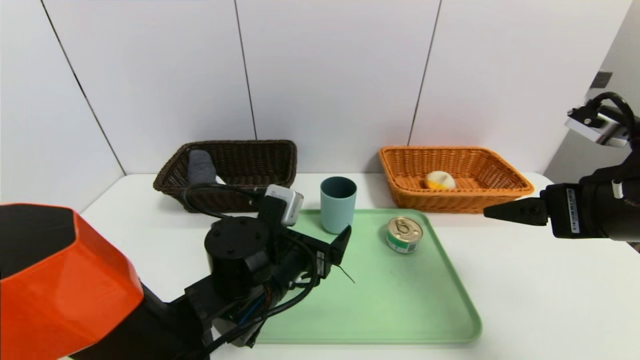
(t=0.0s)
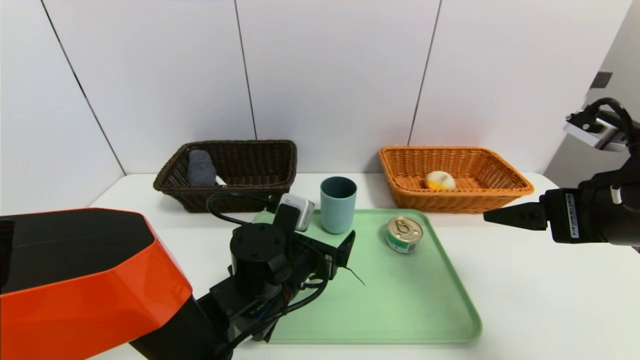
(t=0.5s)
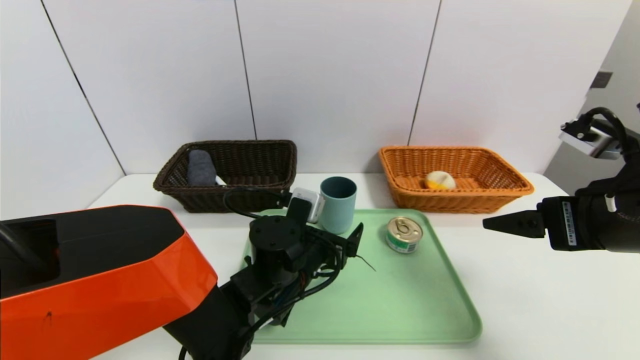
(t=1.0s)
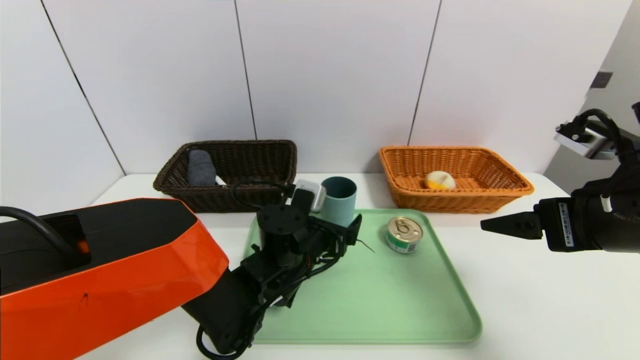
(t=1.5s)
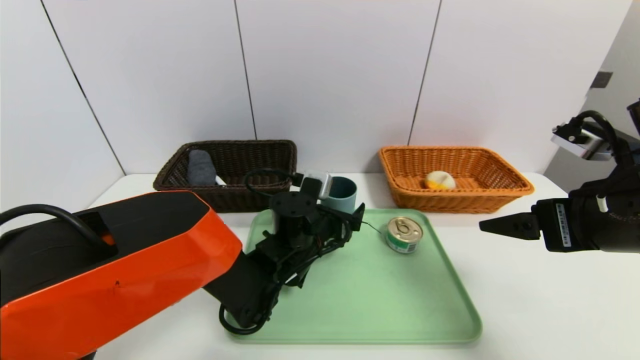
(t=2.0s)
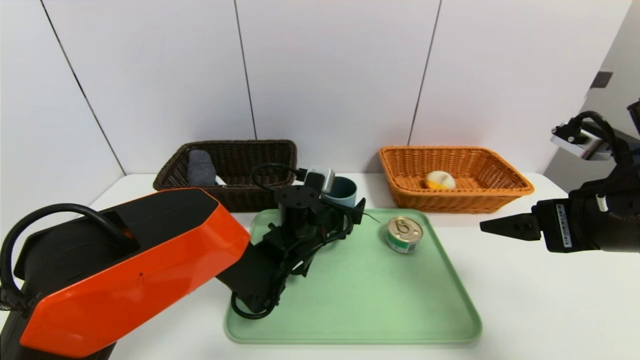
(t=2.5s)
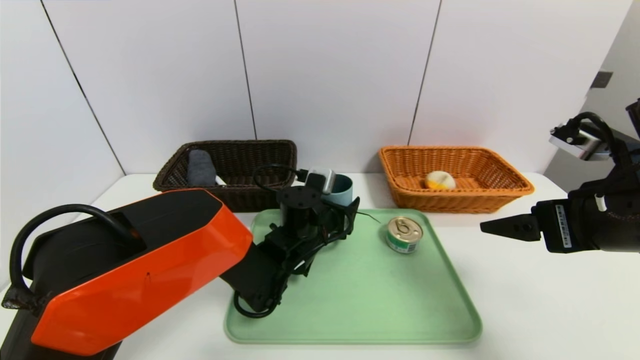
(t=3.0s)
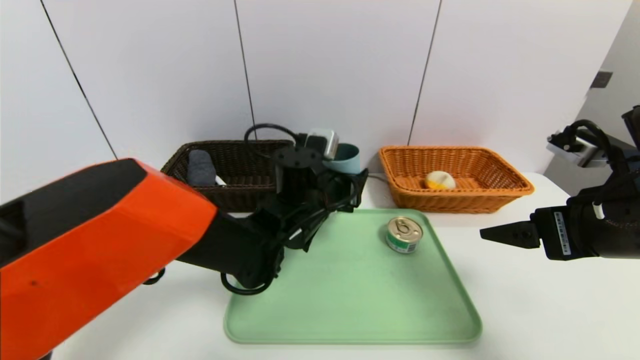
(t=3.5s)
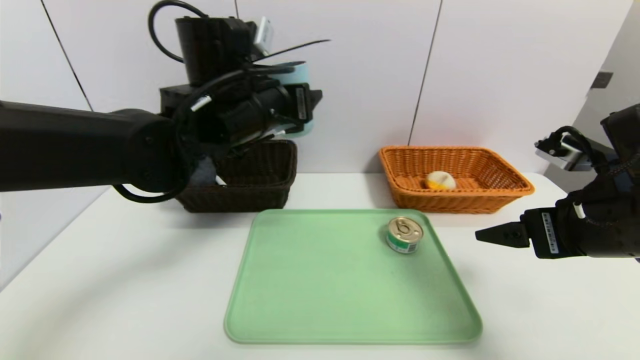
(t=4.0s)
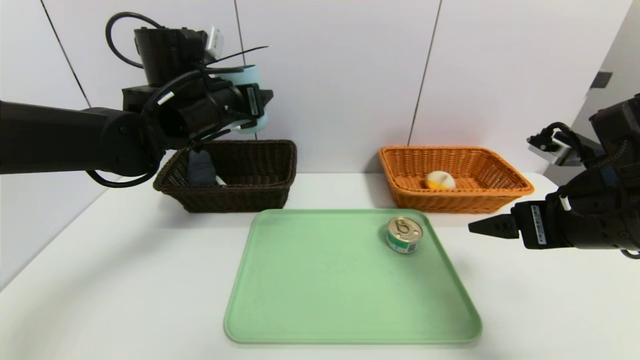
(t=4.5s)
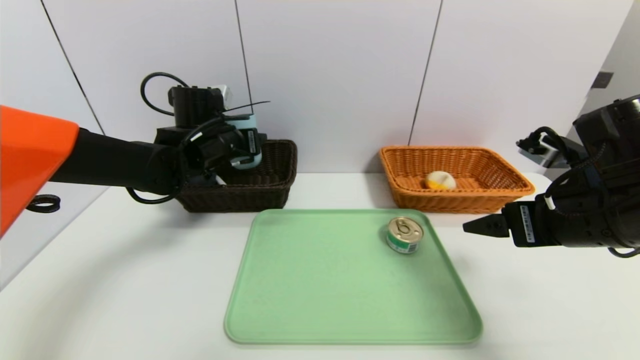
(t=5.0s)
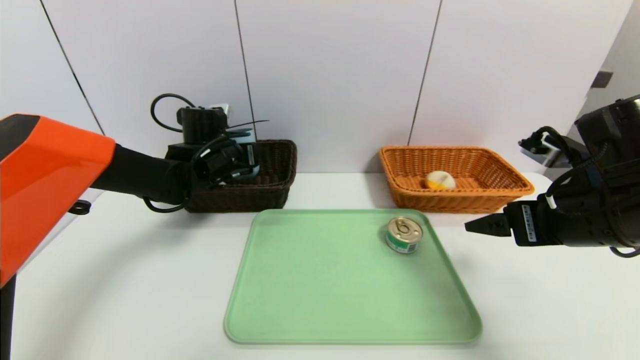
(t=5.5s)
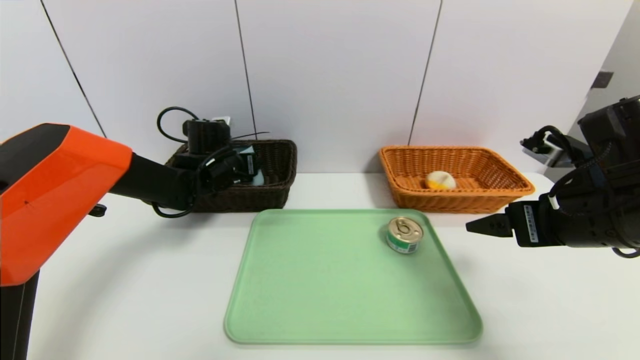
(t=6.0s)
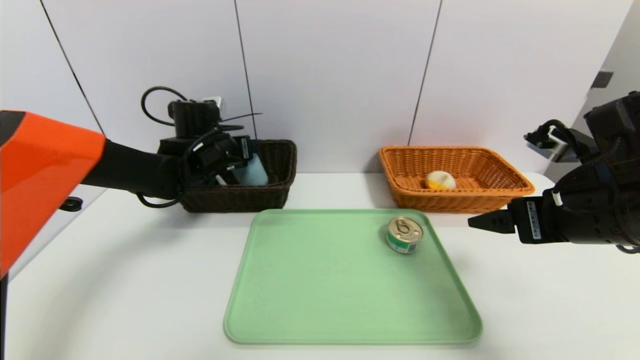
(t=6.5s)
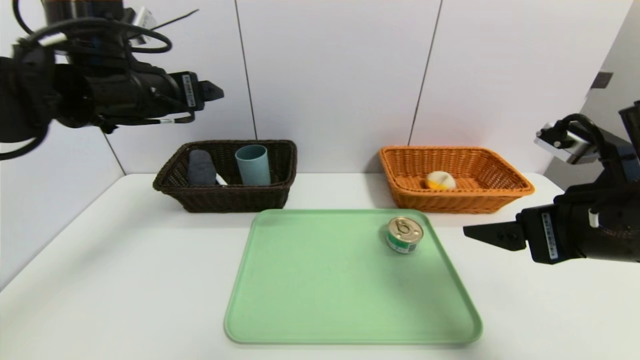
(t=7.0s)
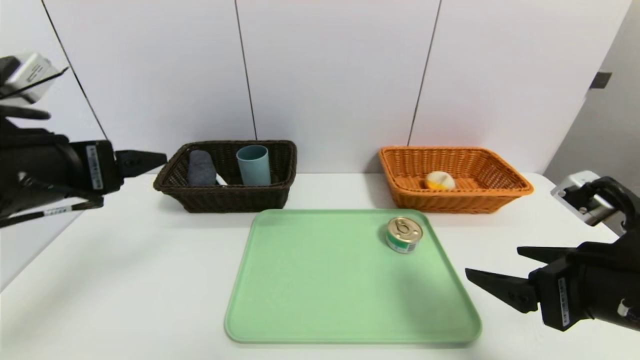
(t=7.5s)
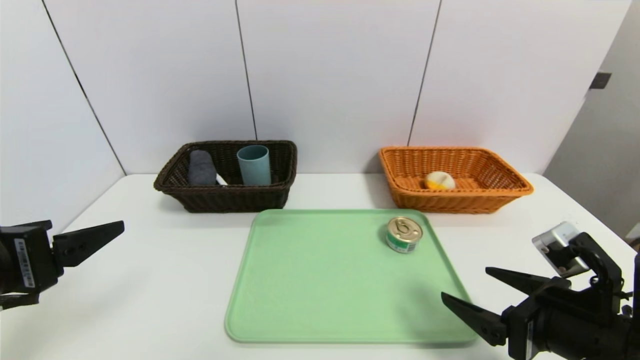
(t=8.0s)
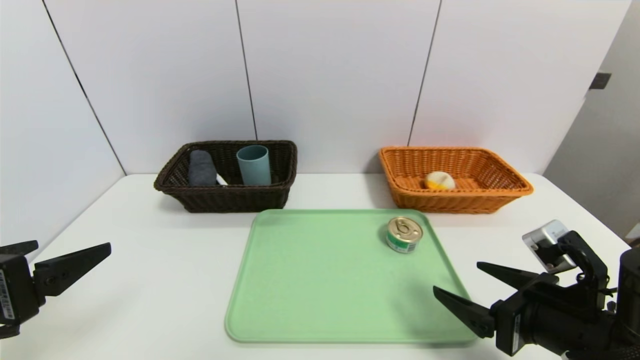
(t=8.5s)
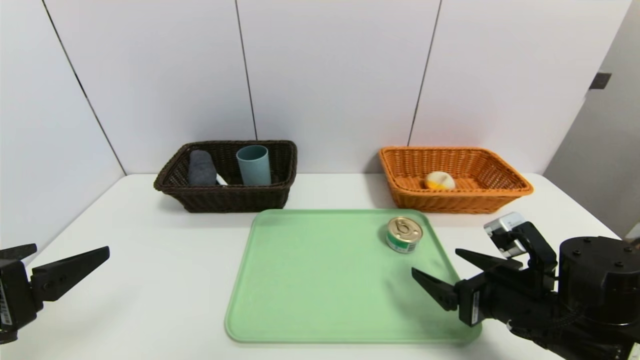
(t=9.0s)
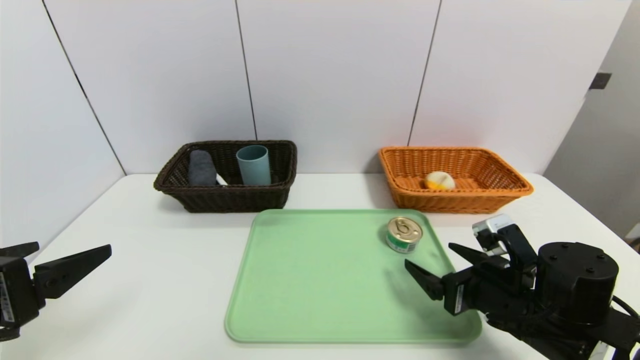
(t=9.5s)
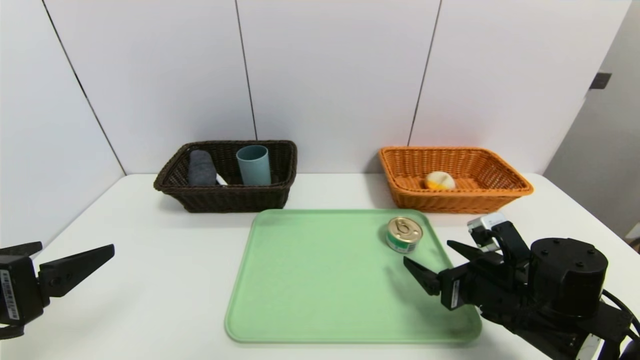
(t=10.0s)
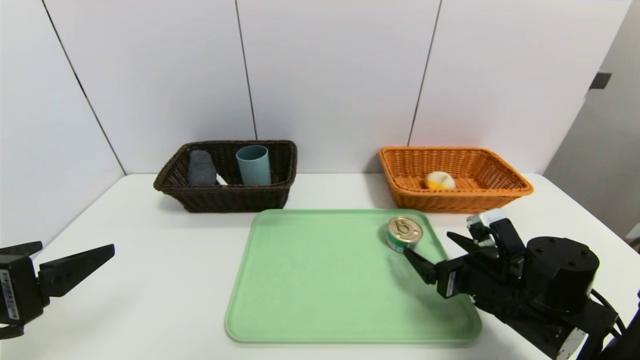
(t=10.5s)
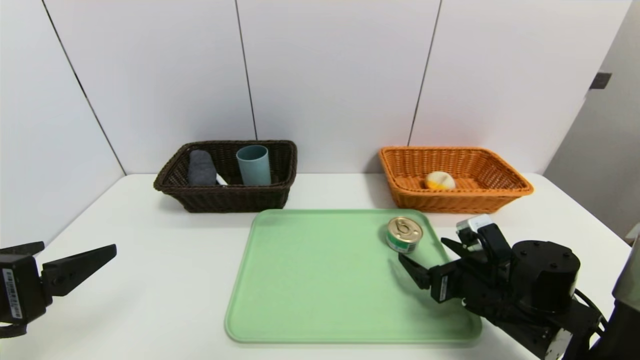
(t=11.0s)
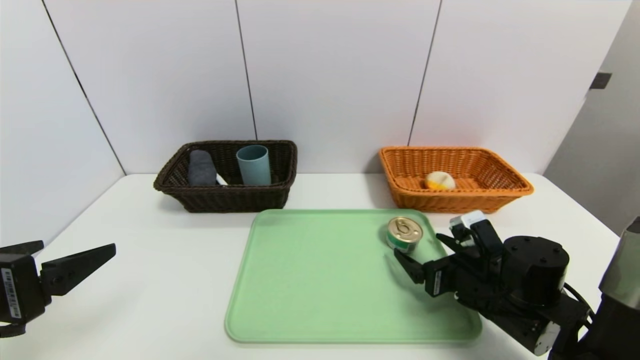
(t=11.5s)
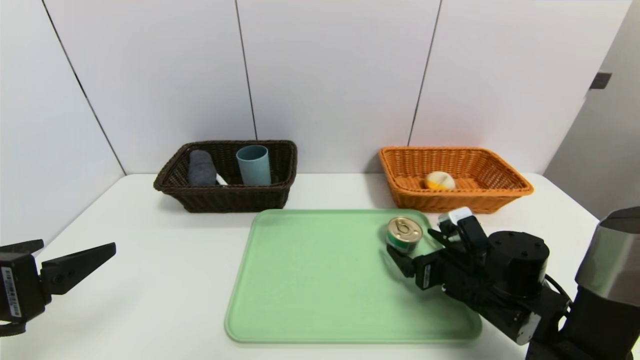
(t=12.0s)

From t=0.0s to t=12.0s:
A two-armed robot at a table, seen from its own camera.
Task of the whole recording: place the food in the right basket with the right gripper, and place the non food items in the left basket with the left gripper.
Step, from t=0.0s to t=6.5s: Grasp the blue cup and put it in the left basket.
From t=0.0s to t=2.0s: The left gripper heads forward, covering some 10 cm.
From t=2.0s to t=4.0s: The left gripper heads upward, covering some 20 cm.
From t=4.0s to t=6.0s: The left gripper goes approximately 20 cm downward, forward and to the left.
From t=6.0s to t=8.0s: The left gripper moves backward, about 35 cm. Meanwhile the right gripper goes approximately 10 cm downward and backward.
From t=8.0s to t=10.0s: The right gripper is displaced forward by about 5 cm.
From t=10.0s to t=12.0s: The right gripper shifts by approximately 5 cm.

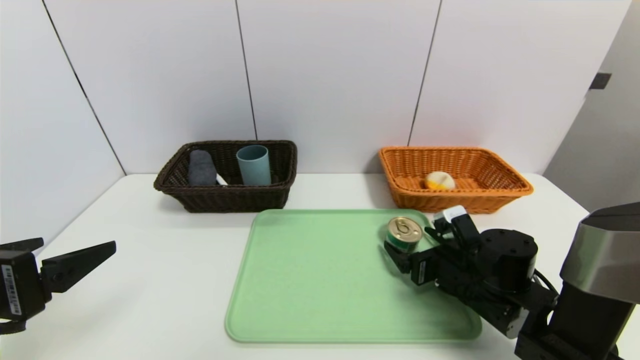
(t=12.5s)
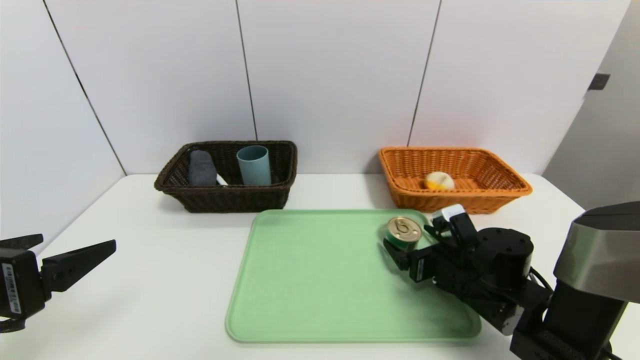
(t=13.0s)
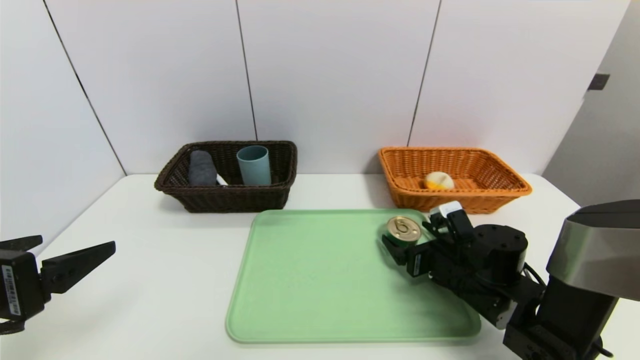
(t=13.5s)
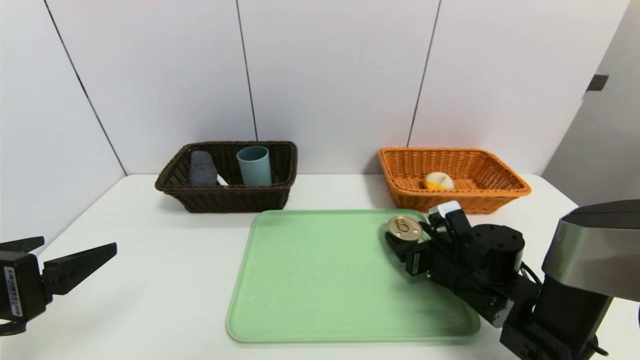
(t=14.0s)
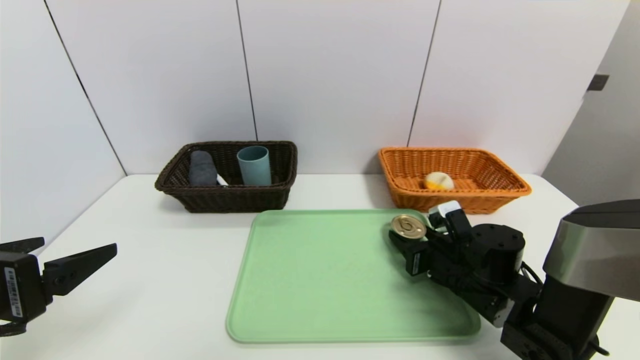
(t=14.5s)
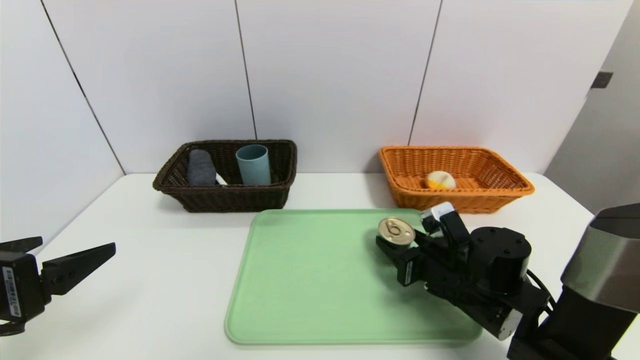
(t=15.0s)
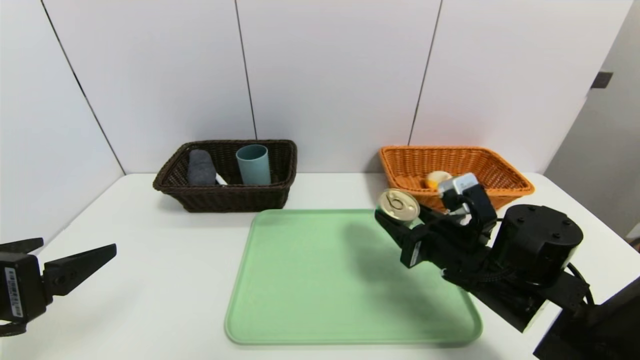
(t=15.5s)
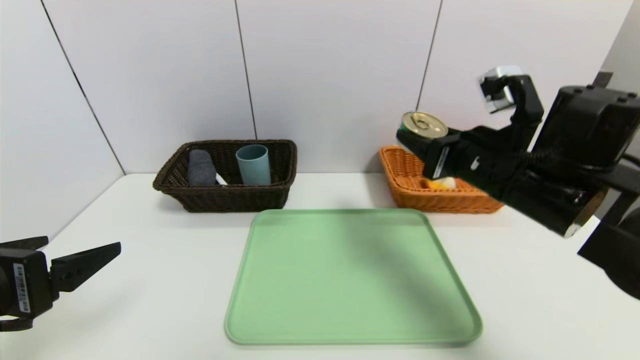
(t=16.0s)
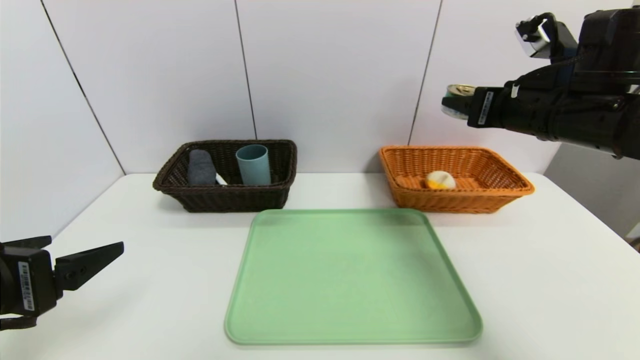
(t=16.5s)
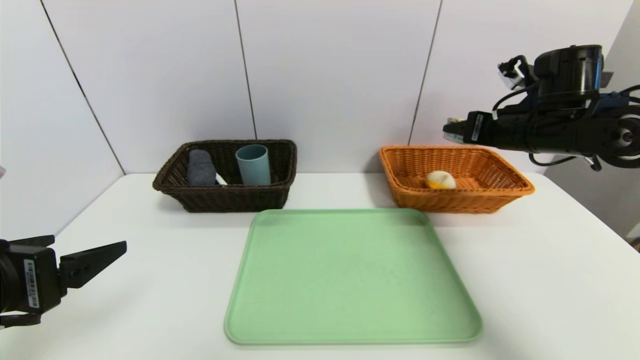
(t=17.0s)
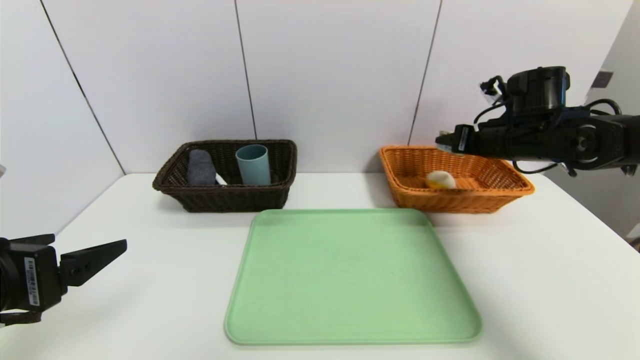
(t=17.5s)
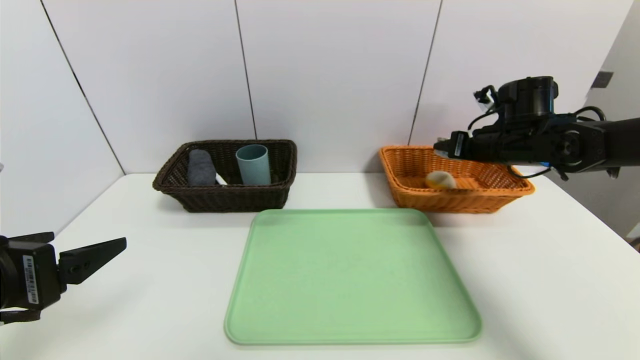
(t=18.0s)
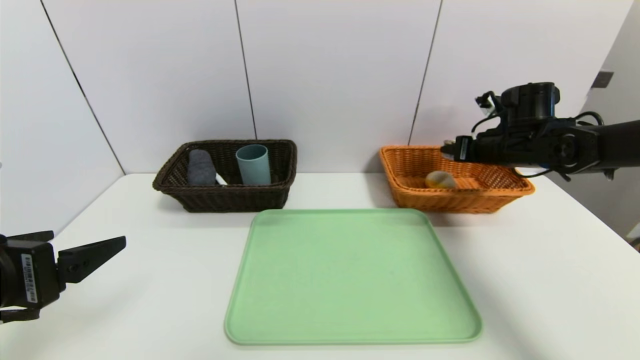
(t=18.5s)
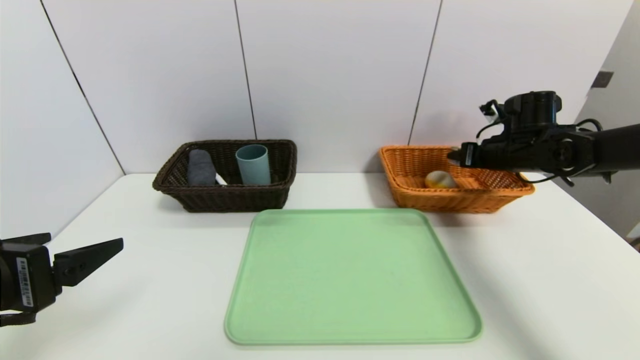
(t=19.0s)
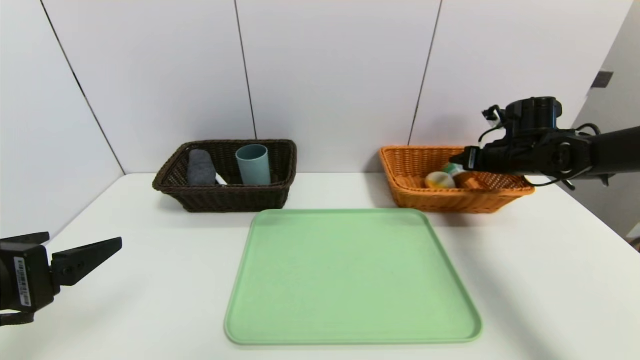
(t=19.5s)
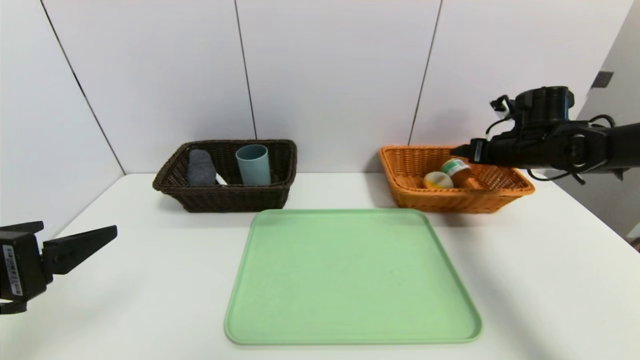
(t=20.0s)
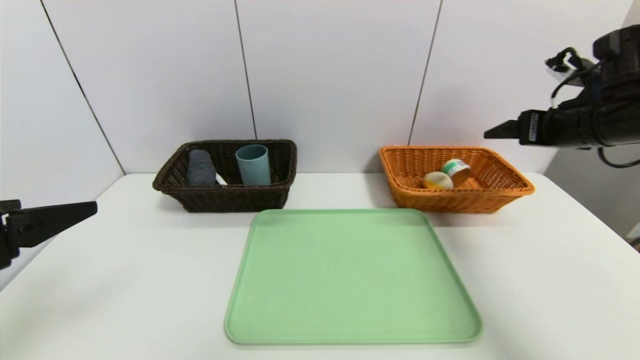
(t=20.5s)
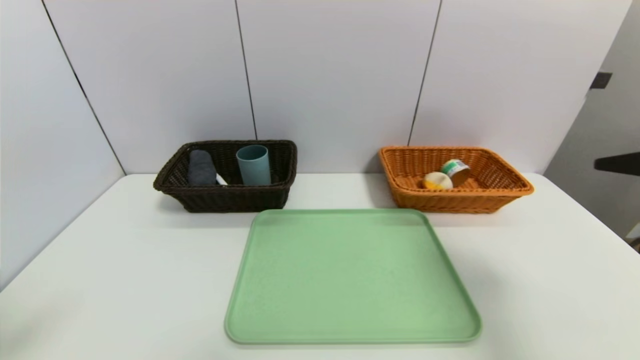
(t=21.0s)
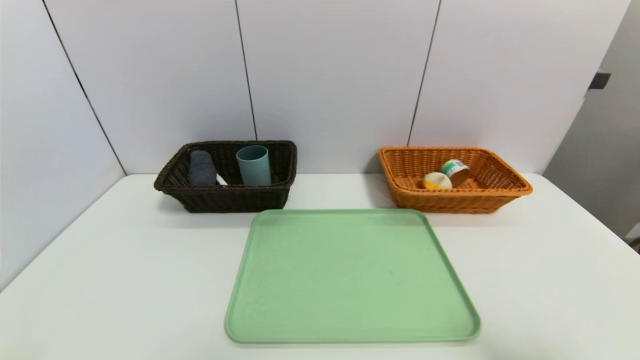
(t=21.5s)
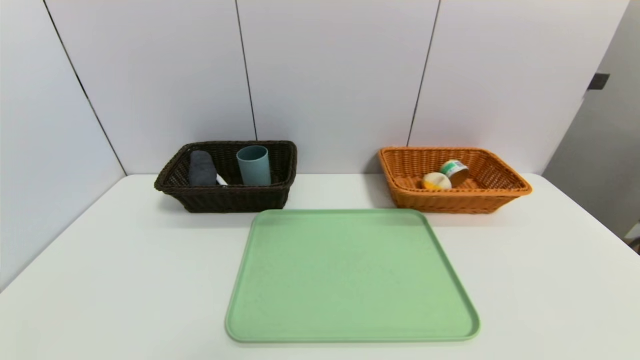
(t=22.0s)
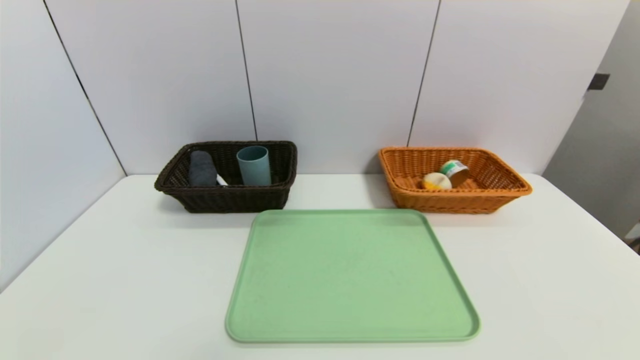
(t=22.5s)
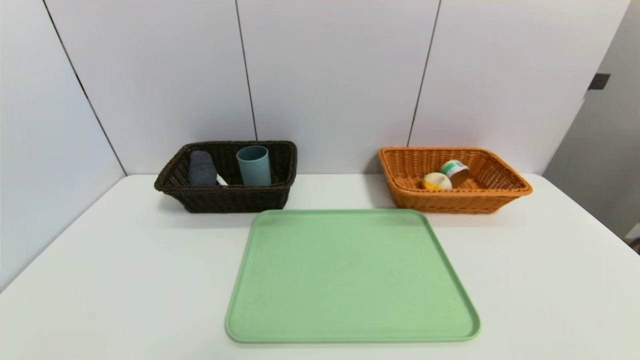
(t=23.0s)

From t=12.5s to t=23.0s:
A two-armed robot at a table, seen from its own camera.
Task of the whole recording: place the food in the right basket with the right gripper, and place the non food items in the left basket with the left gripper.
Step, from t=12.5s to t=20.0s: Grasp the tin and put it in the right basket.
From t=12.5s to t=14.5s: The right gripper closes up.
From t=14.5s to t=16.5s: The right gripper travels upward by some 25 cm.
From t=16.5s to t=19.0s: The right gripper travels forward, downward and to the right by some 20 cm.
From t=19.0s to t=21.0s: The right gripper is displaced backward and upward by approximately 30 cm, and opens. The left gripper goes about 10 cm backward and upward.
From t=21.0s to t=23.0s: The right gripper travels downward and backward by some 30 cm; the left gripper heads downward, covering approximately 20 cm.
